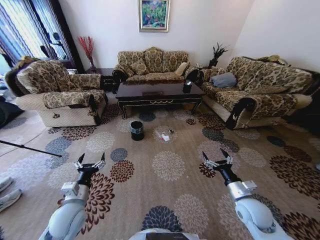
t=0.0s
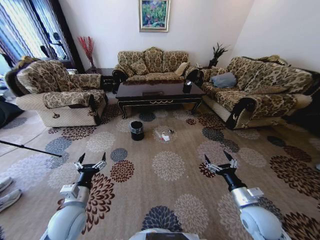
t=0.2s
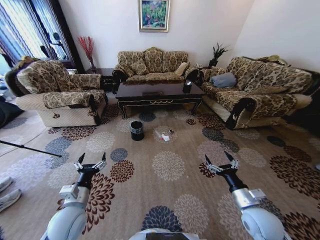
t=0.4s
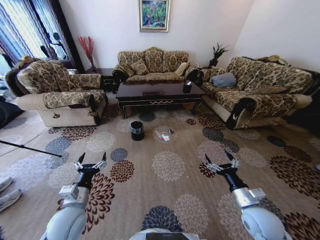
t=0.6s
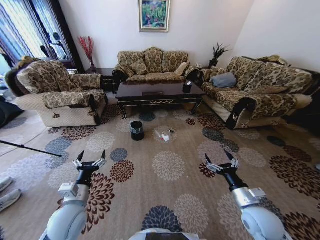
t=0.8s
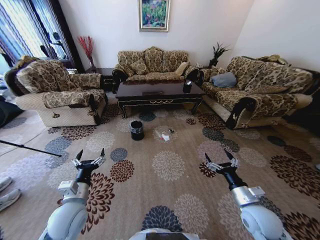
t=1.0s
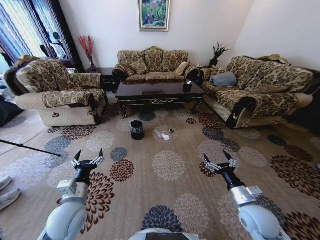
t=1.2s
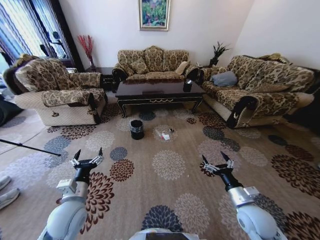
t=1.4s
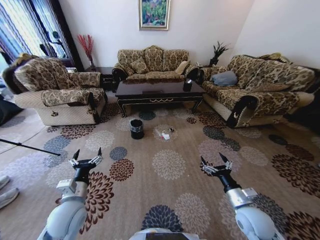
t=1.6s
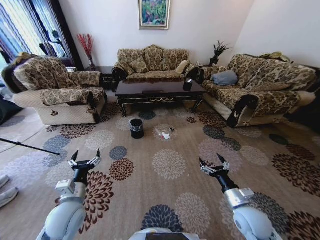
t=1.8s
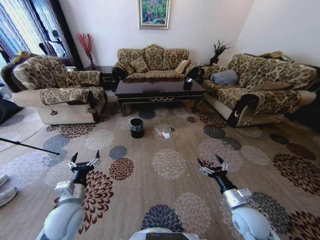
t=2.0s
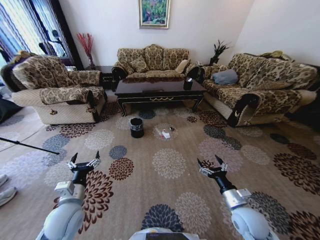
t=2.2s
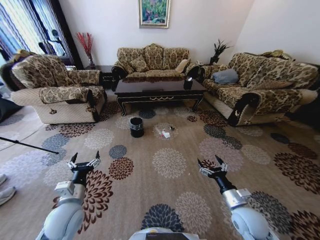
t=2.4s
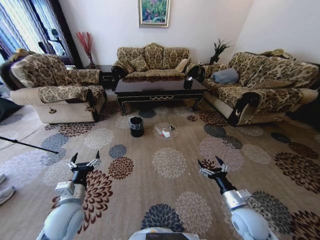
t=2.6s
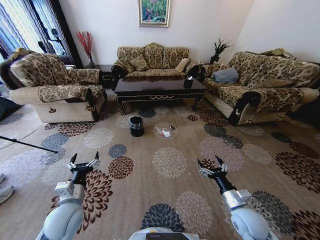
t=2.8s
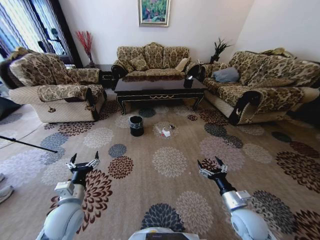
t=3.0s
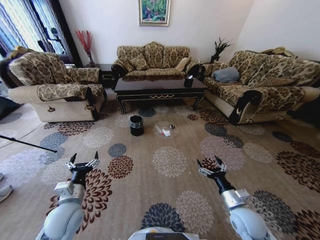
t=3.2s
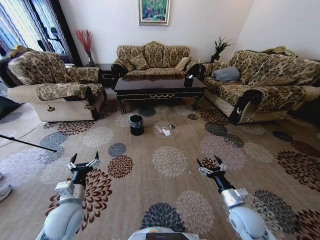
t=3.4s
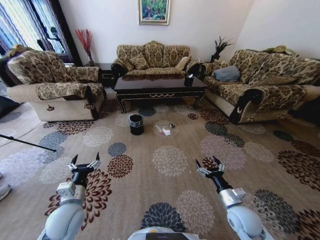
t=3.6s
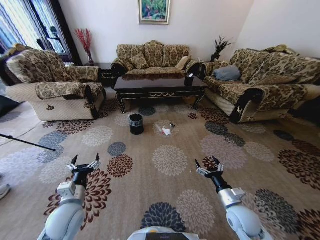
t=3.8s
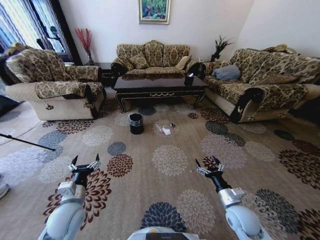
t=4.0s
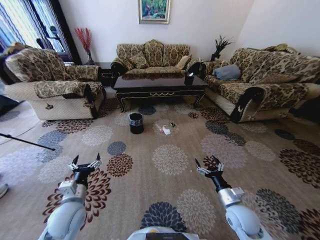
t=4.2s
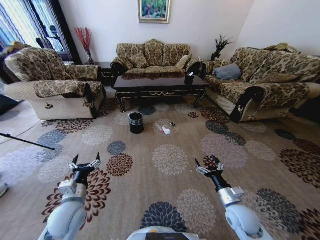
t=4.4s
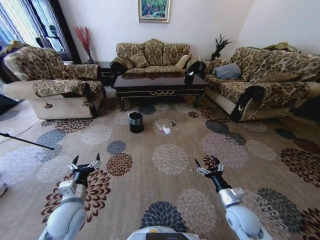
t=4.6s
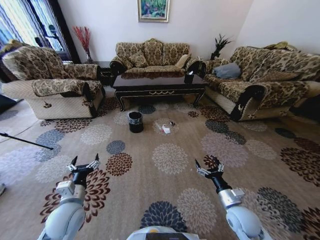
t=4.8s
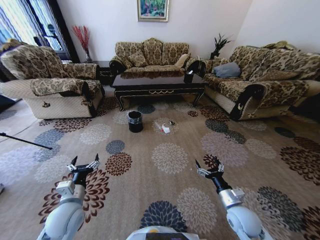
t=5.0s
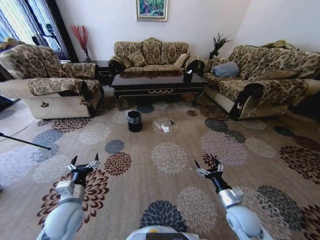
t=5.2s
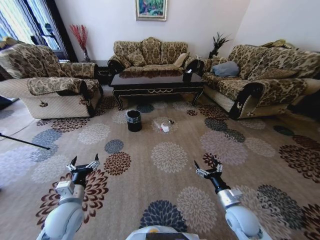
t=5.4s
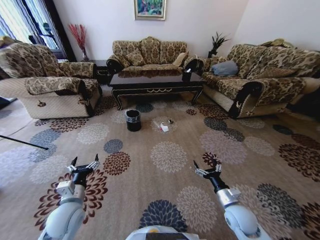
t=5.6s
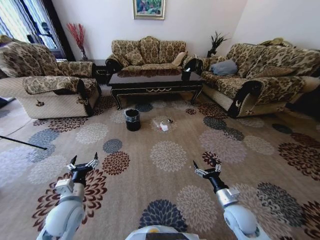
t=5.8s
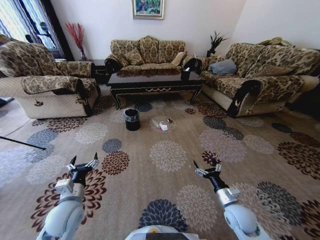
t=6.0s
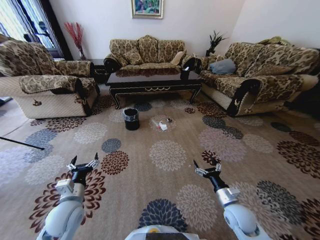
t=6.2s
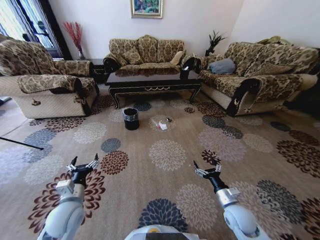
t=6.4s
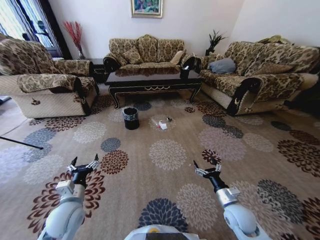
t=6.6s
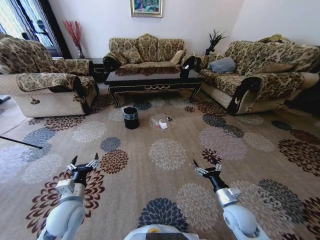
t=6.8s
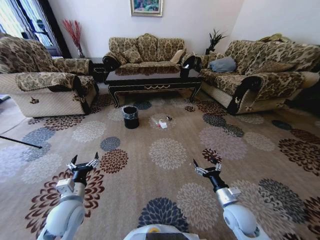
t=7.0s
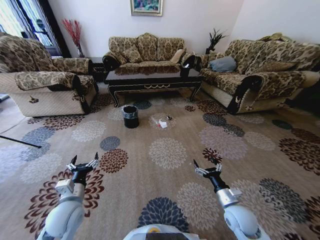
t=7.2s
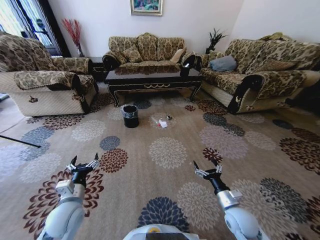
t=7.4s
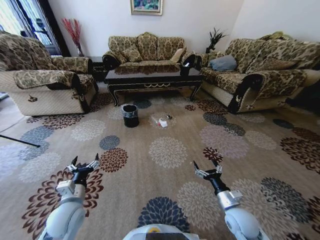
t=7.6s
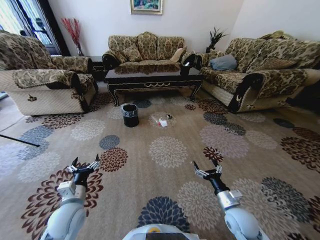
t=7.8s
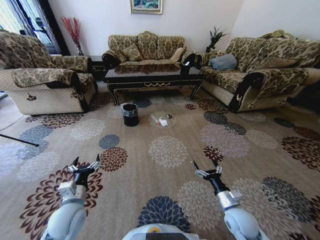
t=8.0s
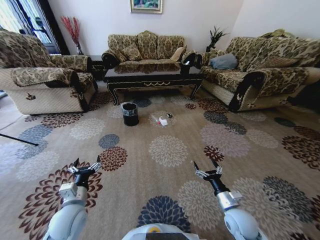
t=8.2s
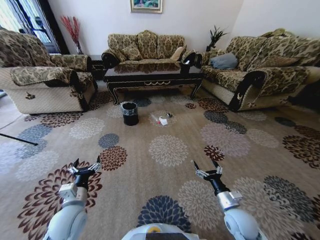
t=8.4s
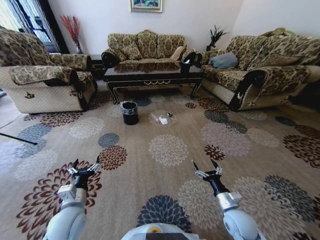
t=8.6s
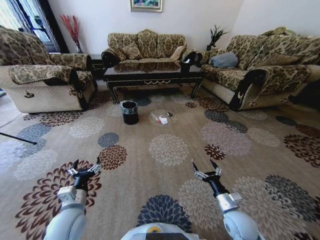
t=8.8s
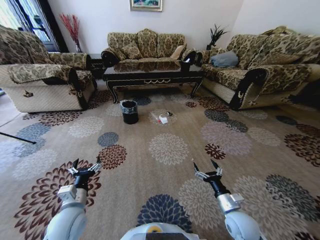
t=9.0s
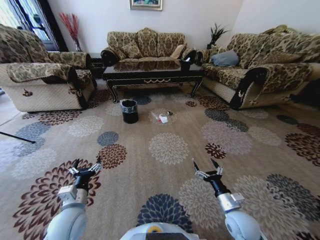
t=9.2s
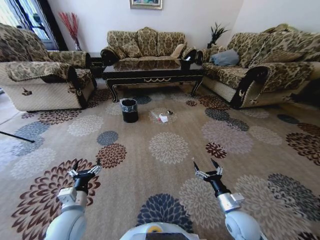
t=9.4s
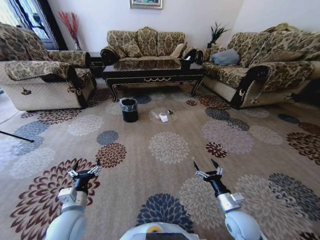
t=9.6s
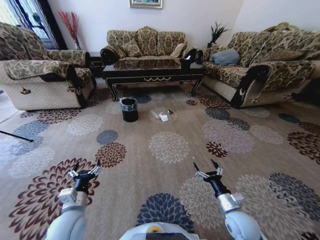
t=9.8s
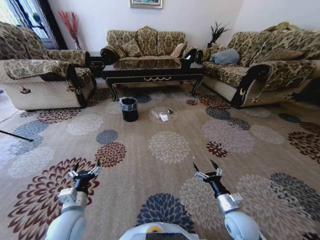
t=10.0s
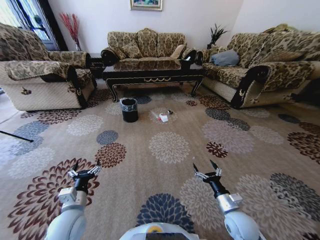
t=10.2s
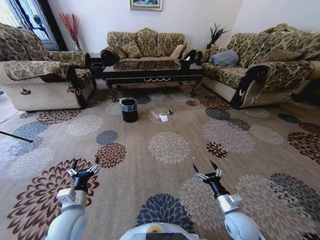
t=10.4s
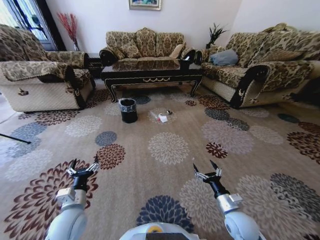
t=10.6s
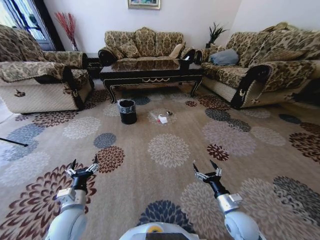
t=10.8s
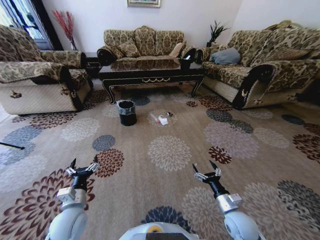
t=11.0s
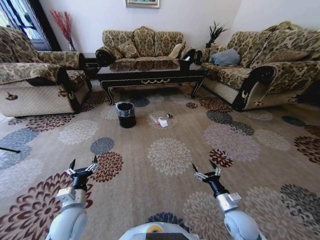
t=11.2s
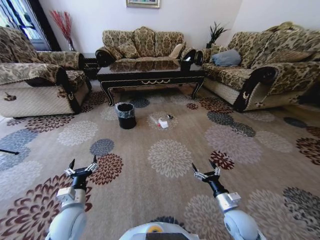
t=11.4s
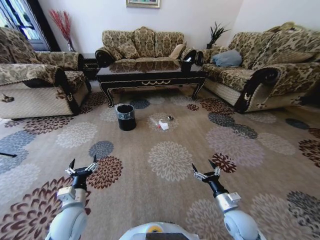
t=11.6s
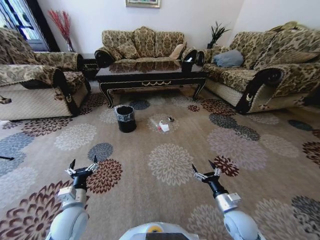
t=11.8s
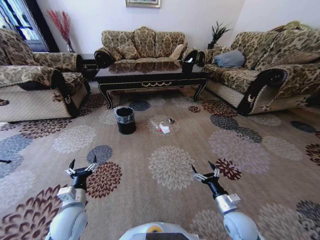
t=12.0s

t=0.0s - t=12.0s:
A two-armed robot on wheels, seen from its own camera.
Task of the whole recording: Move to the front of the table and pick up the trash from the floor, then place it into the trash bin.
t=9.0s - t=10.4s: The two grippers keep their place.

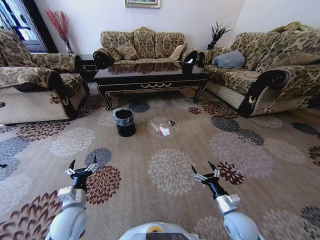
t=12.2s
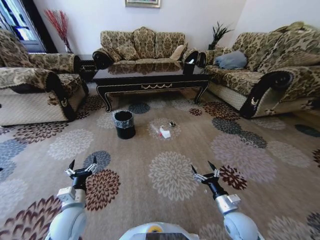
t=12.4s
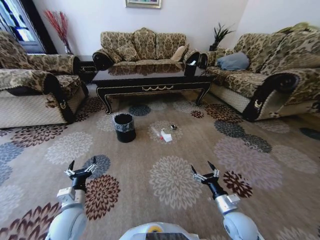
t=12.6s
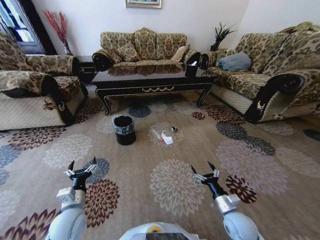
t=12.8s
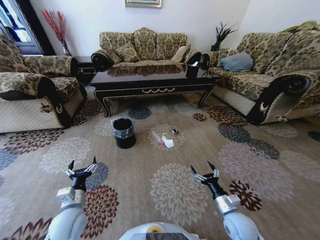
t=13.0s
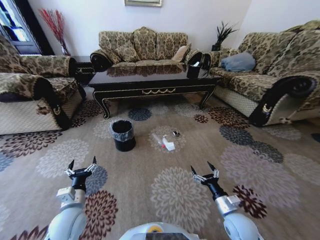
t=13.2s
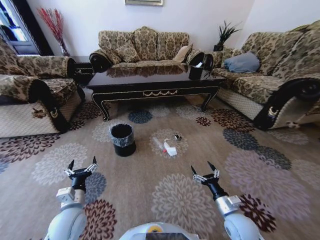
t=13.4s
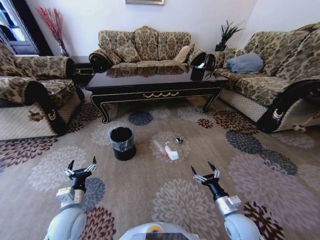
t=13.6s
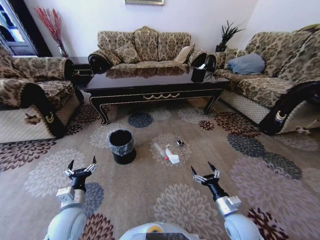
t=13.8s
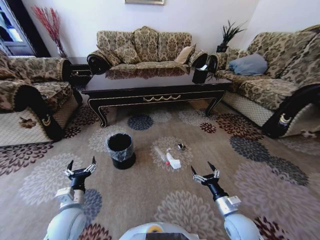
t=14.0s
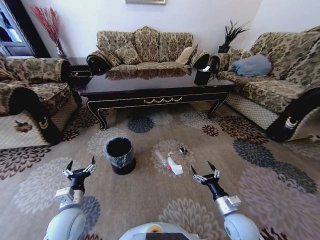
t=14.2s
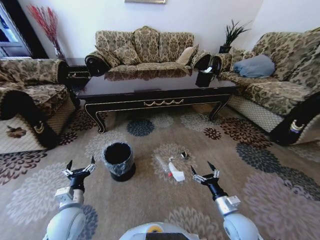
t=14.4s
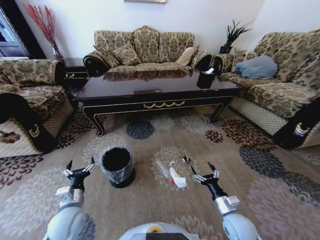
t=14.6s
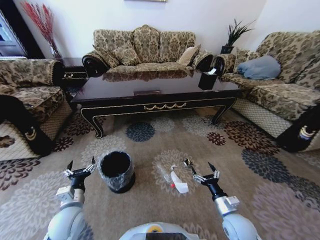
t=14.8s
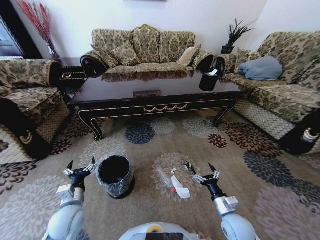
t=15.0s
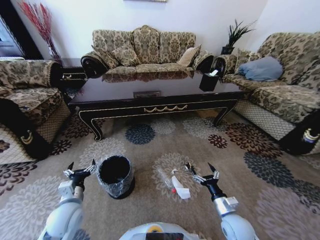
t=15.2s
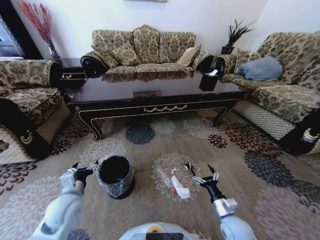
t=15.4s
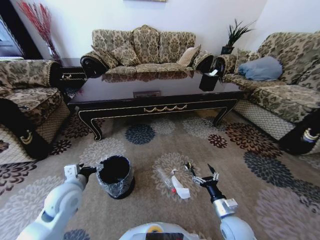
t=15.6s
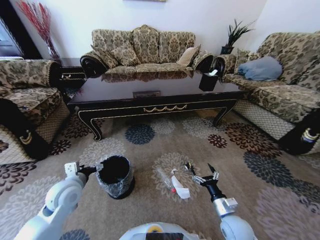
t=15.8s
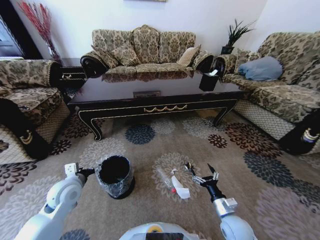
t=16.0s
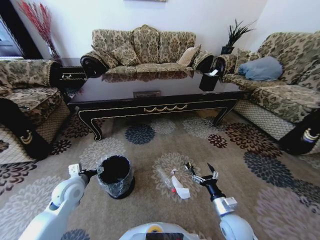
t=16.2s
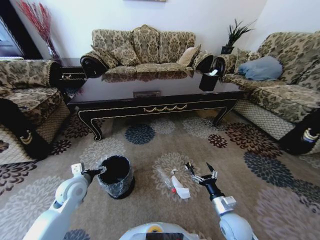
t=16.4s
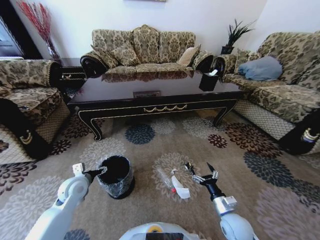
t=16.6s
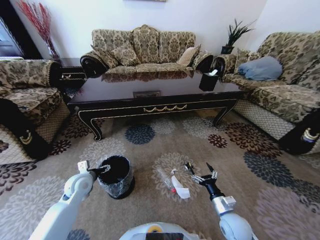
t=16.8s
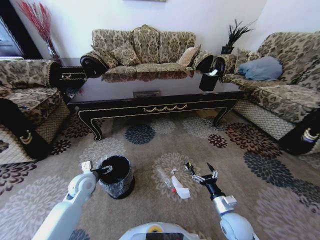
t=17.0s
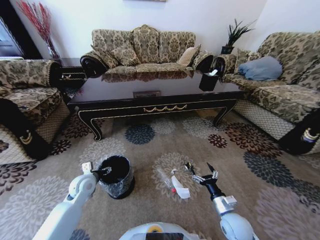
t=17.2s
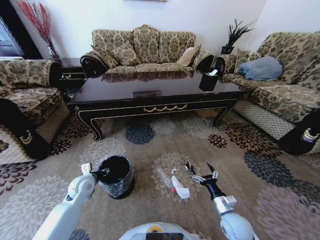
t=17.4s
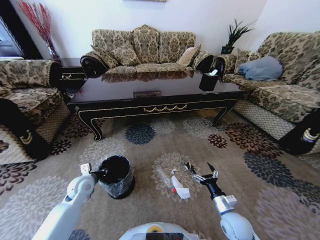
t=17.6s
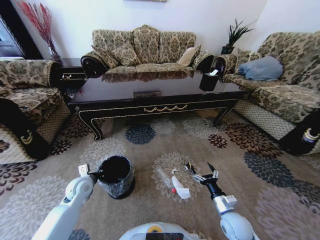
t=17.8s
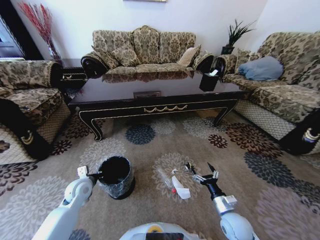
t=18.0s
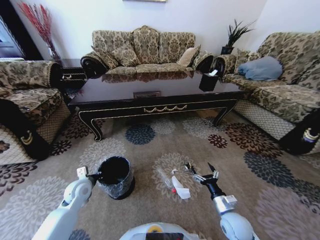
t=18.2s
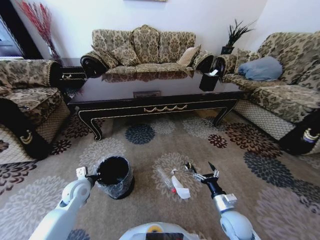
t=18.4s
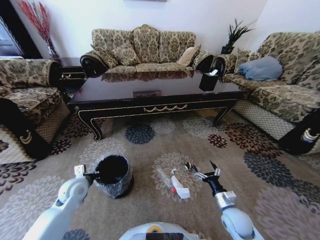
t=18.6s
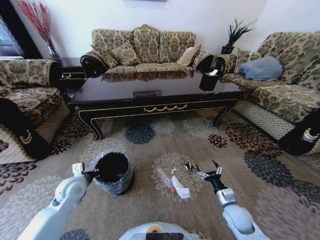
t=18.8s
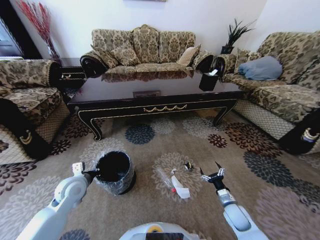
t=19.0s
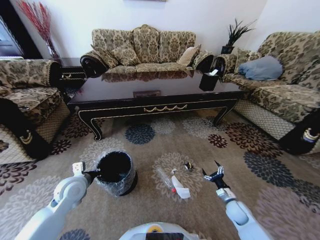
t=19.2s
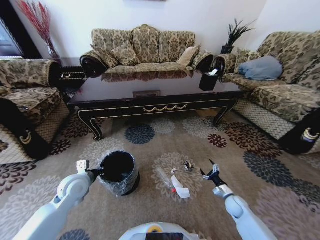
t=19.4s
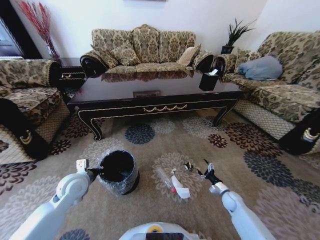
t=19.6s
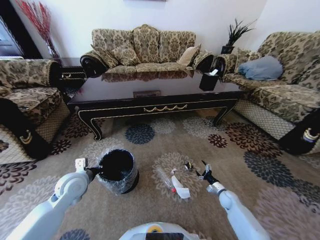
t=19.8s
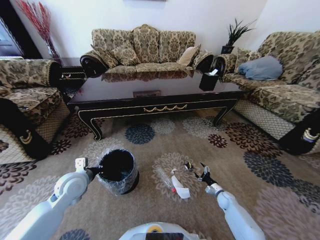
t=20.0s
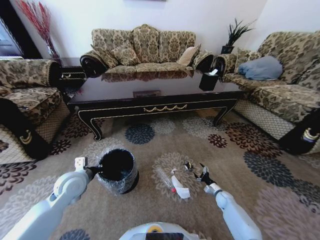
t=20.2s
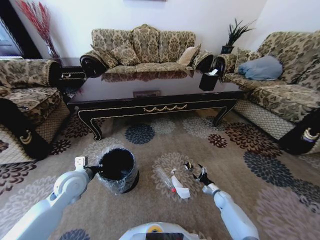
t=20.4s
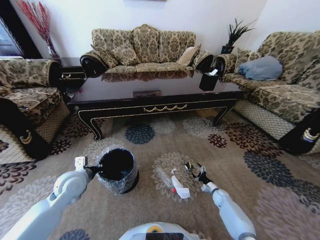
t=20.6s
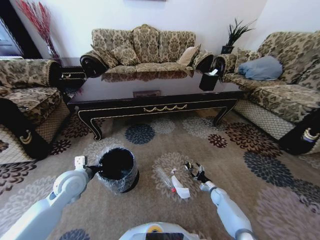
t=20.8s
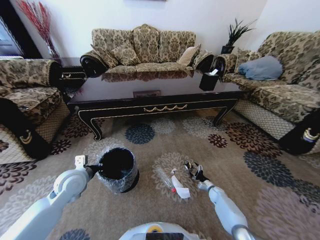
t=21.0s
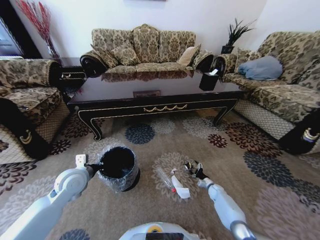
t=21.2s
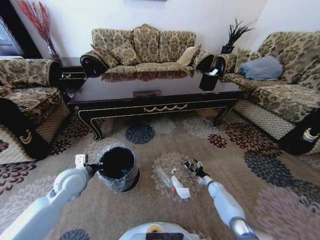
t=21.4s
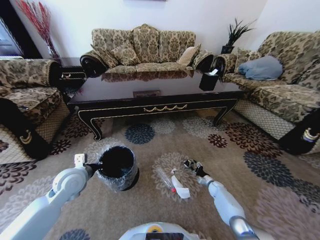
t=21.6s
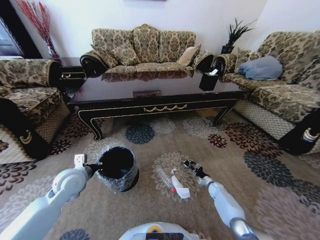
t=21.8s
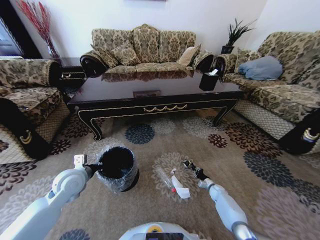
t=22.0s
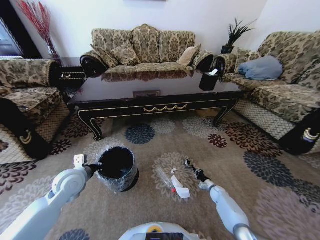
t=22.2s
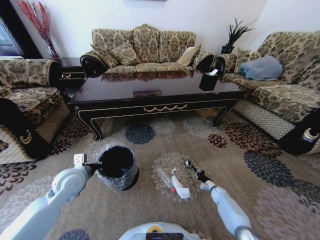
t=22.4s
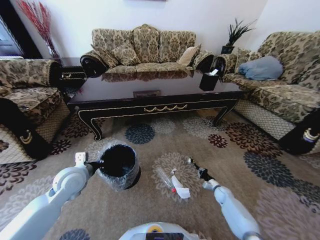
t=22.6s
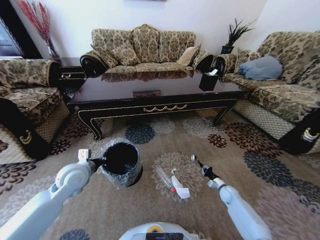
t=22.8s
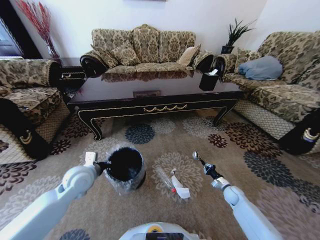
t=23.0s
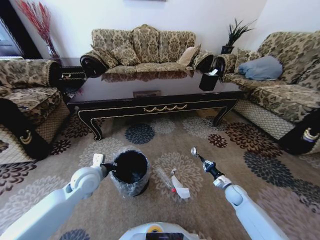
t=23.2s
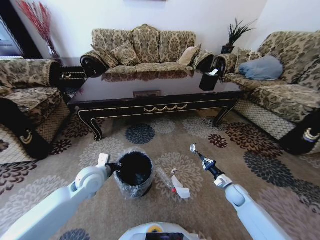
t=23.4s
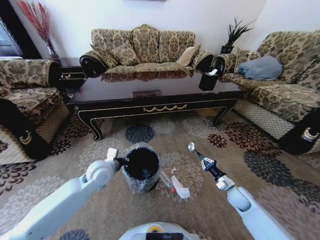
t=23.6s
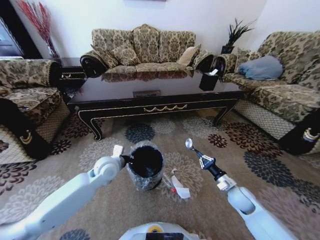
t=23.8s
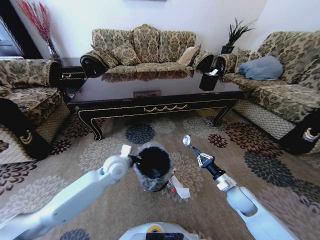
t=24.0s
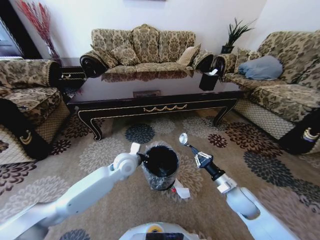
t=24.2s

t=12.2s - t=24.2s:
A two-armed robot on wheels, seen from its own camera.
Task of the whole recording: Move to the front of the table and pick up the trash from the floor, then place it into the trash bin.
t=15.2s - t=16.6s: The left gripper shifts about 10 cm forward.
t=16.6s - t=18.2s: The left gripper closes up.
t=18.2s - t=19.8s: The left gripper heads upward, covering roughly 10 cm. Meanwhile the right gripper shifts some 25 cm downward, forward and to the right.
t=19.8s - t=21.2s: The right gripper heads forward, covering roughly 5 cm.
t=21.2s - t=22.6s: The right gripper closes up.
t=22.6s - t=24.2s: The right gripper is displaced upward by approximately 25 cm. Meanwhile the left gripper moves to the right and forward, roughly 20 cm.
